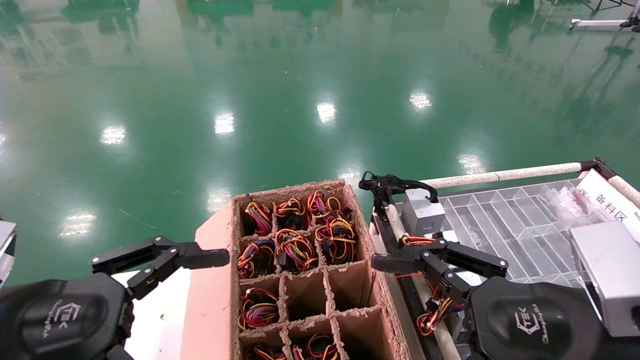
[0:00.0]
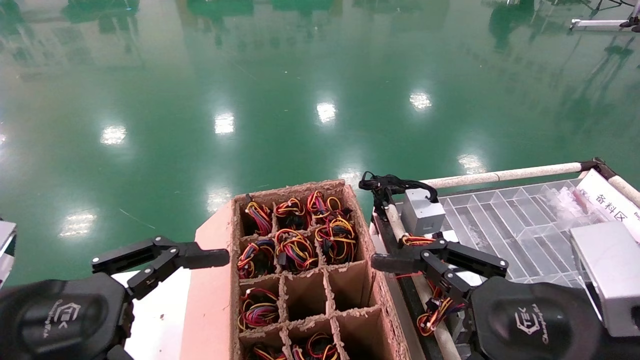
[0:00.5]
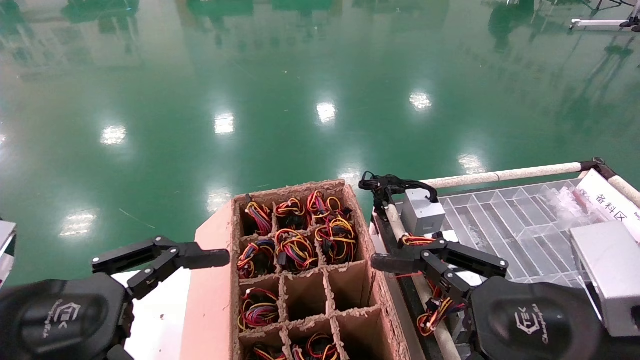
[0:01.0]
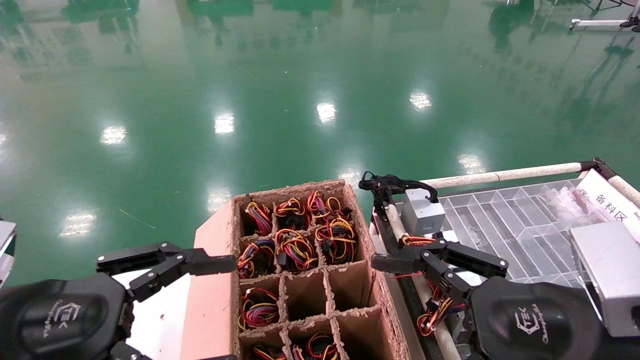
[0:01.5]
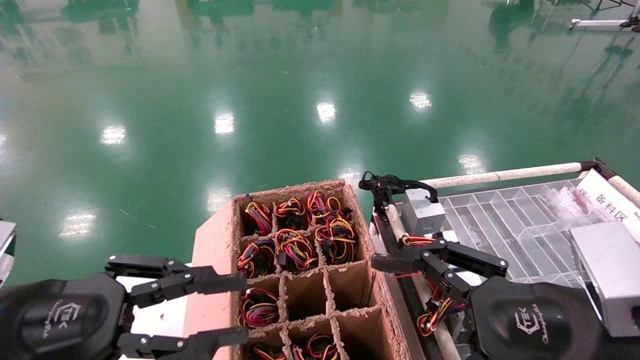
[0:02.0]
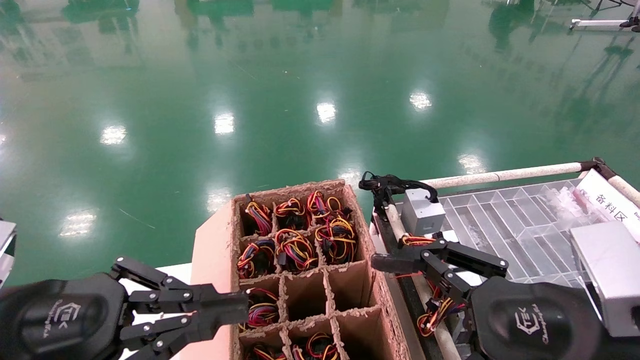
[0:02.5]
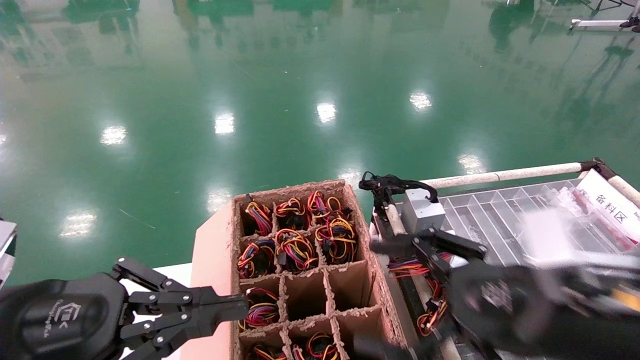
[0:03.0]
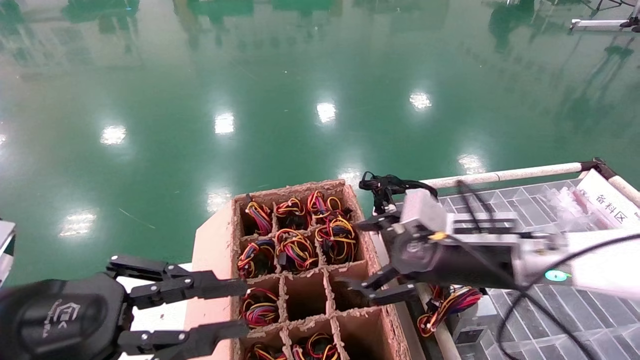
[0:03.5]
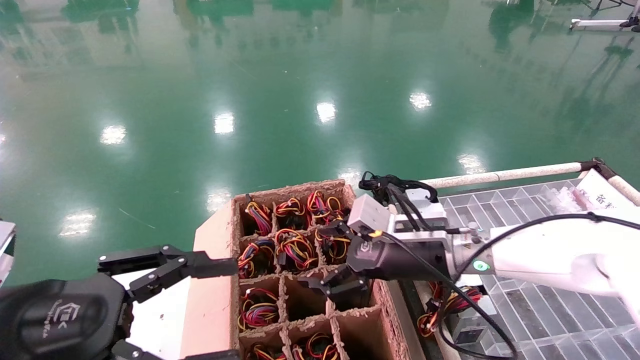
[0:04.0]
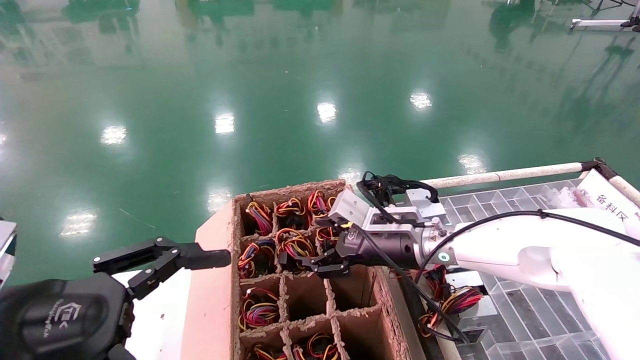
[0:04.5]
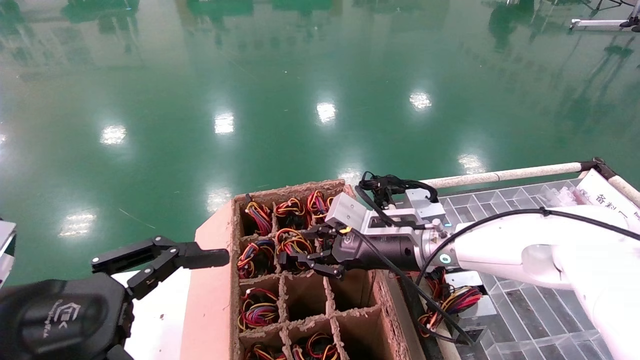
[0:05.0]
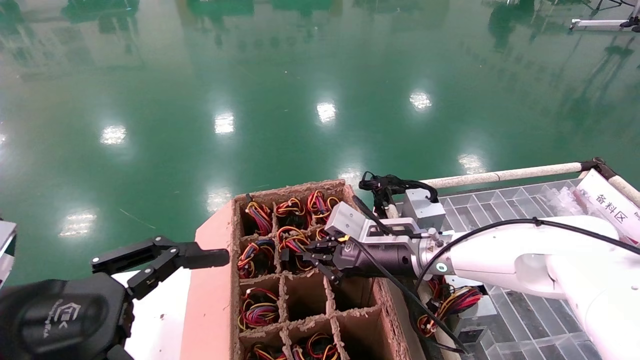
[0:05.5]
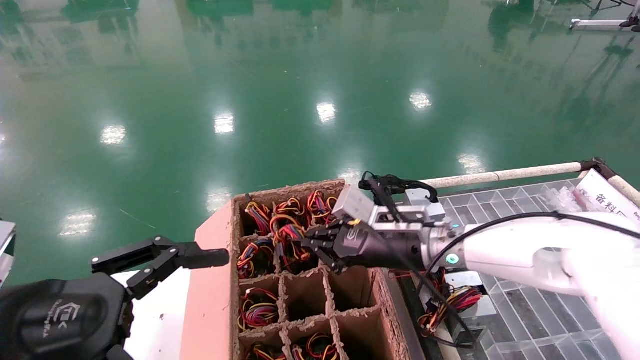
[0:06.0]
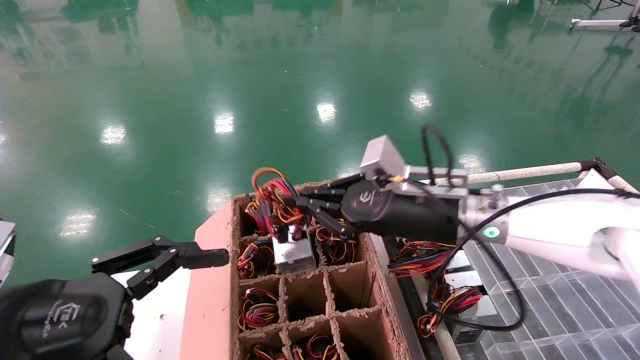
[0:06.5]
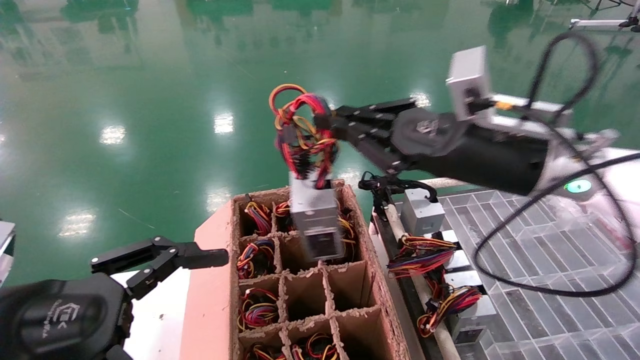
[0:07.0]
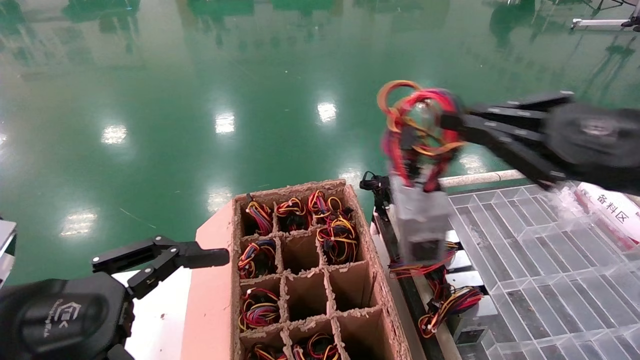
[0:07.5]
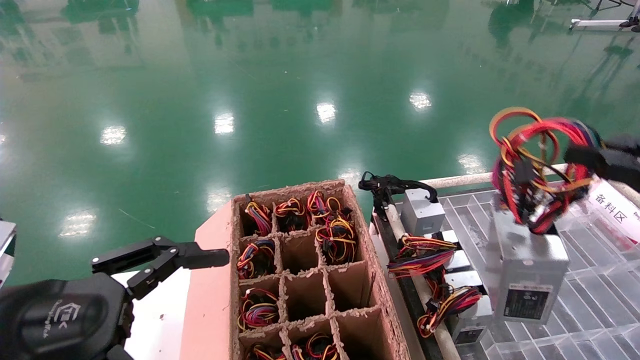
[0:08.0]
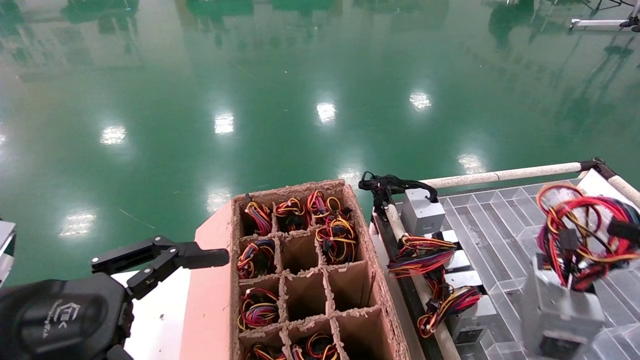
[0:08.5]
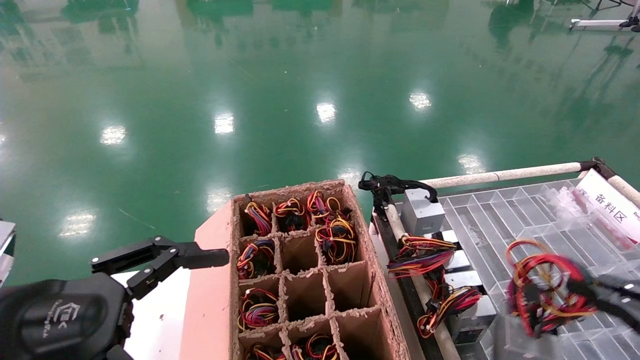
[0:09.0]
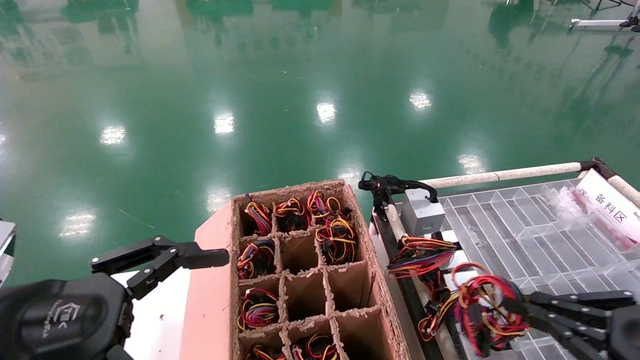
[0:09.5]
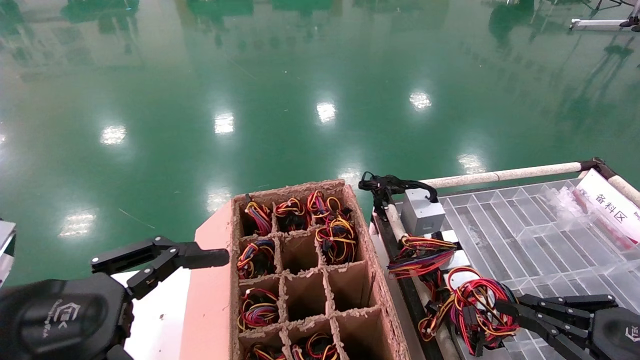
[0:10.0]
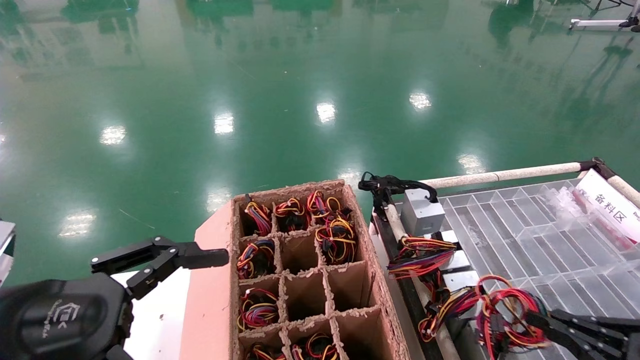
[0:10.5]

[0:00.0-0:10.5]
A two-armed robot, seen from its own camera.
Step, 0:03.5 to 0:05.5: Grab and lift the power supply from the large box.
0:00.0 to 0:02.0: The left gripper closes up.
0:02.0 to 0:04.0: The right gripper travels forward by some 20 cm; the left gripper closes, then reopens.
0:04.0 to 0:06.5: The left gripper opens; the right gripper shifts approximately 5 cm upward, and closes.
0:06.5 to 0:08.5: The right gripper moves to the right and backward, approximately 40 cm.
0:08.5 to 0:10.5: The right gripper heads downward and forward, covering about 15 cm.

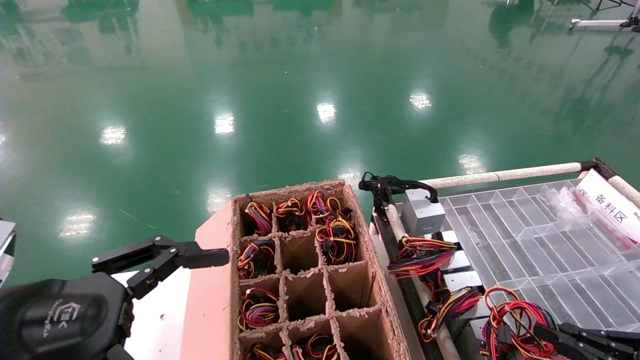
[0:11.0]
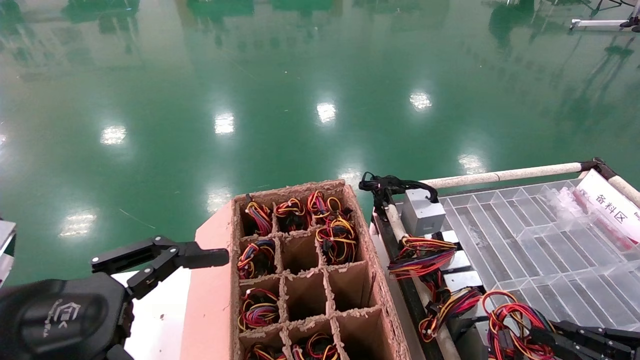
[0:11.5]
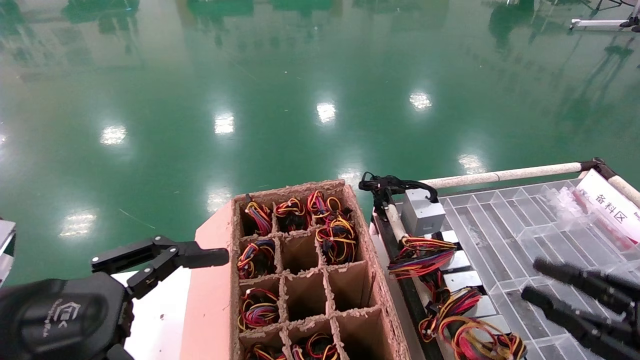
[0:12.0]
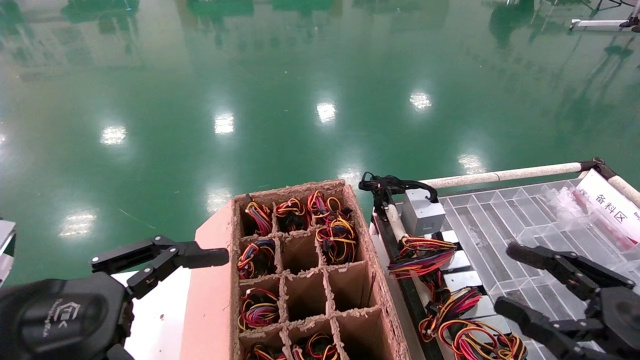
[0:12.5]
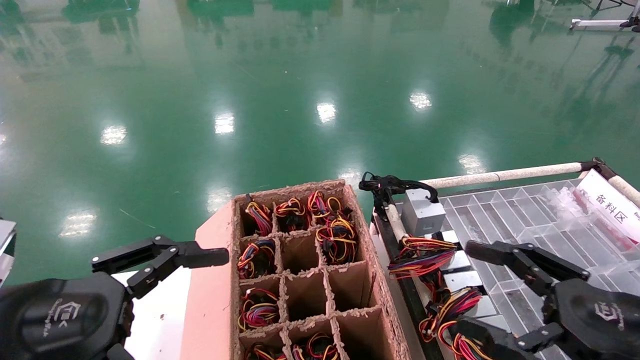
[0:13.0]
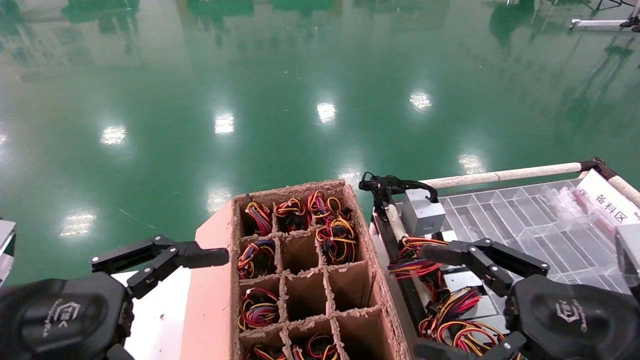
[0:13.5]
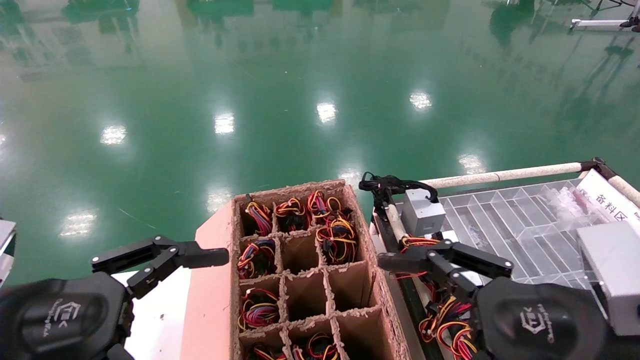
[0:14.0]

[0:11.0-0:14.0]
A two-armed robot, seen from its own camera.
0:11.0 to 0:12.5: The right gripper heads to the left and upward, covering roughly 10 cm, and opens its fingers.
0:12.5 to 0:14.0: The right gripper heads to the left and upward, covering some 15 cm.
